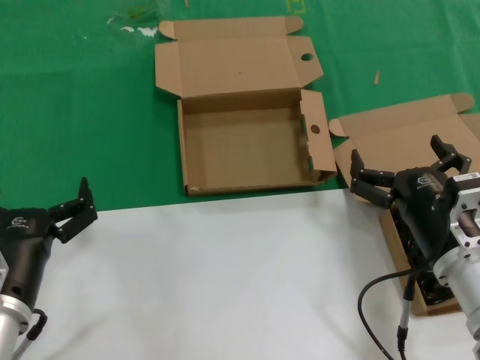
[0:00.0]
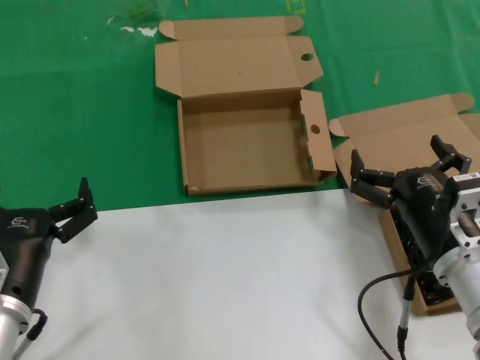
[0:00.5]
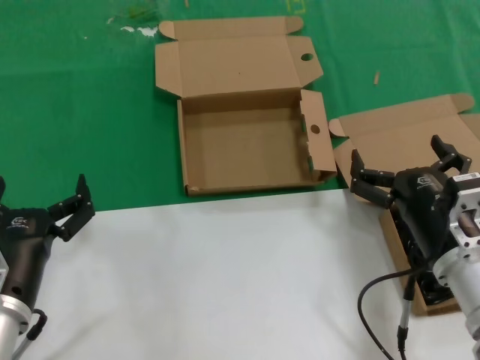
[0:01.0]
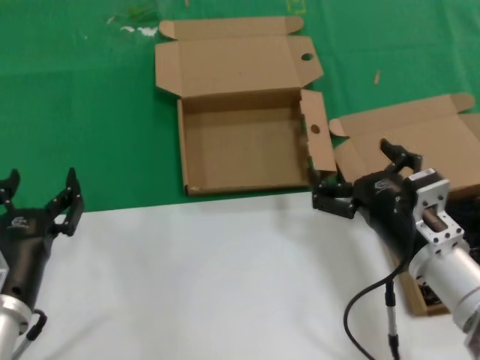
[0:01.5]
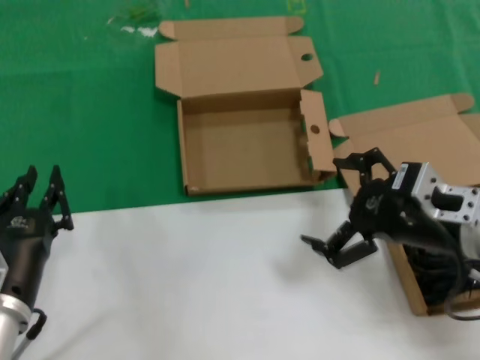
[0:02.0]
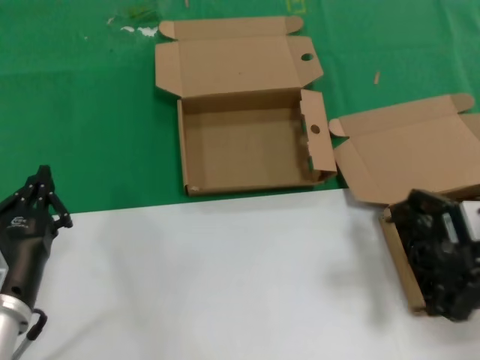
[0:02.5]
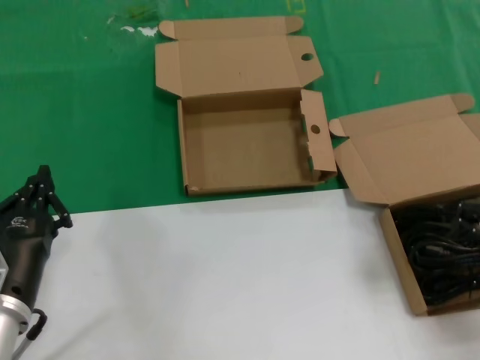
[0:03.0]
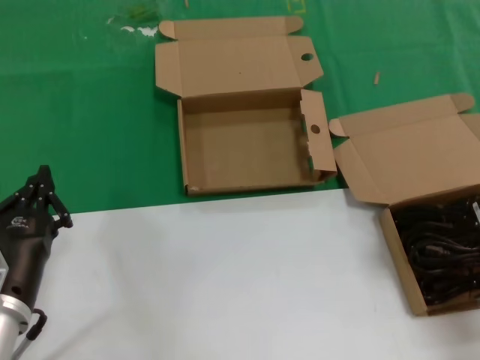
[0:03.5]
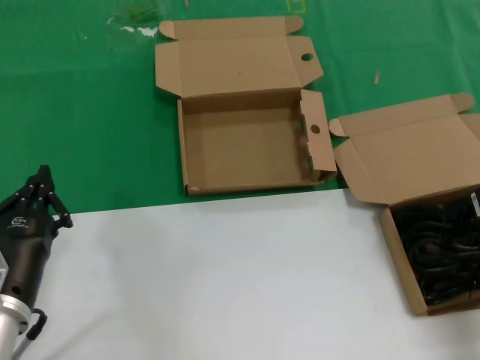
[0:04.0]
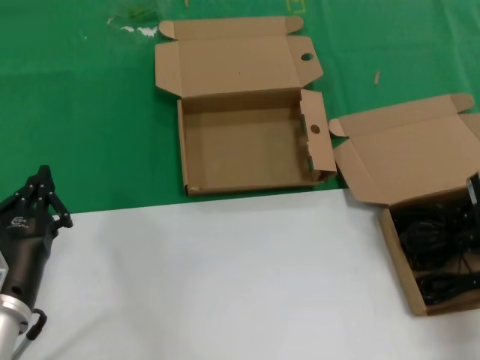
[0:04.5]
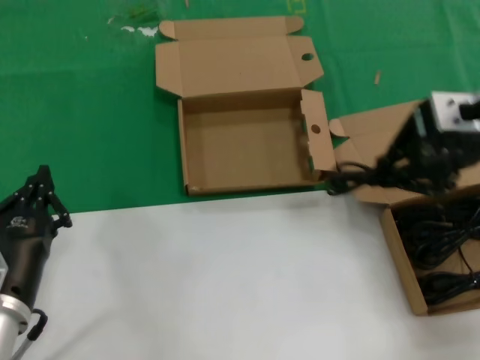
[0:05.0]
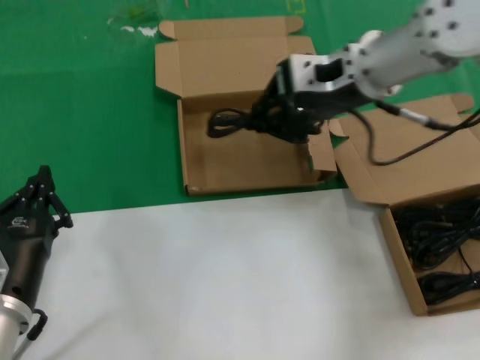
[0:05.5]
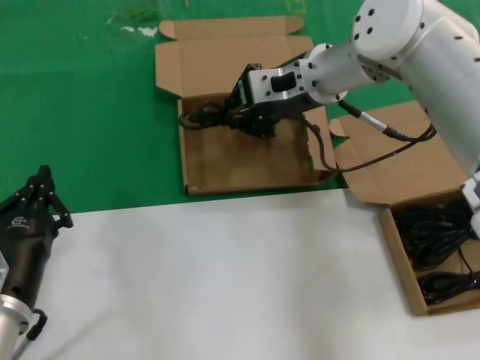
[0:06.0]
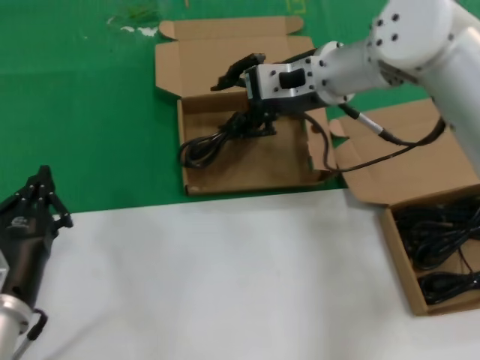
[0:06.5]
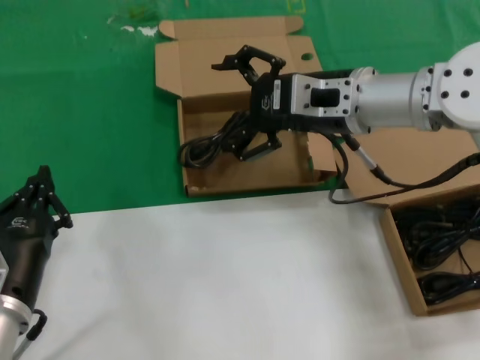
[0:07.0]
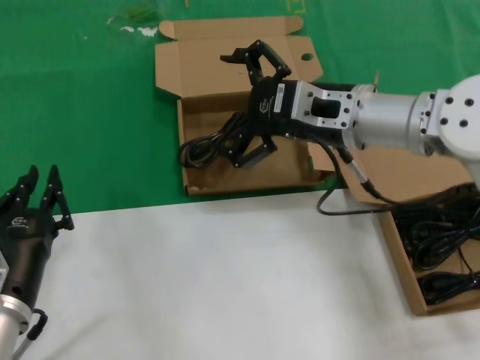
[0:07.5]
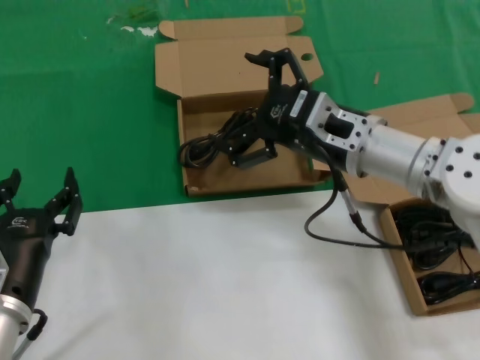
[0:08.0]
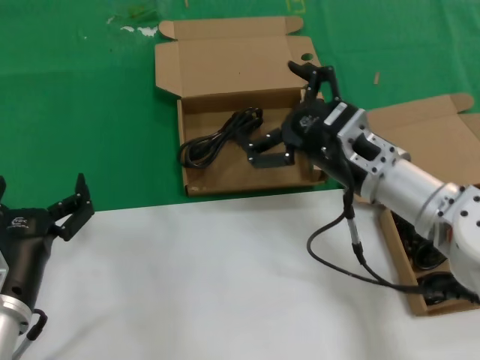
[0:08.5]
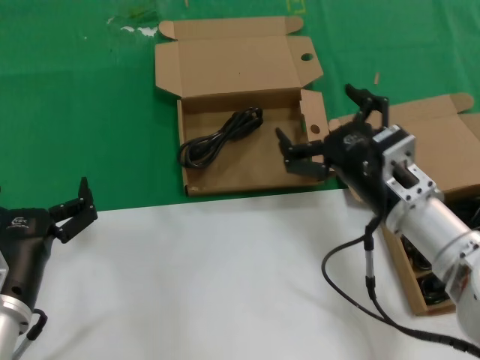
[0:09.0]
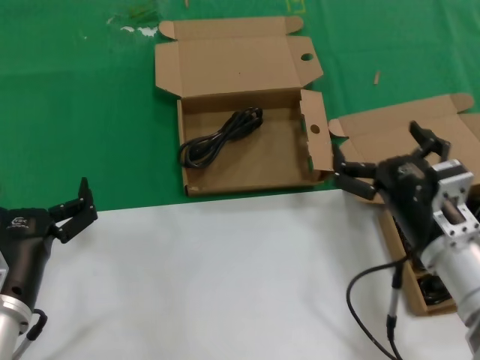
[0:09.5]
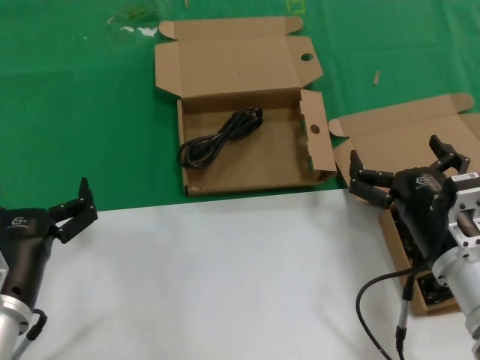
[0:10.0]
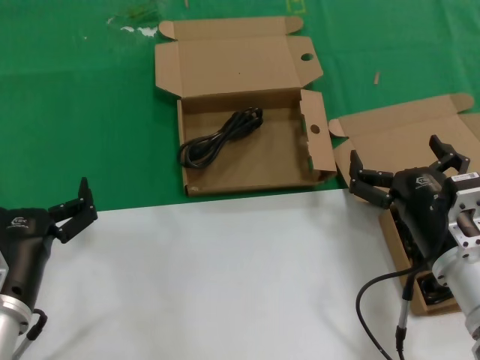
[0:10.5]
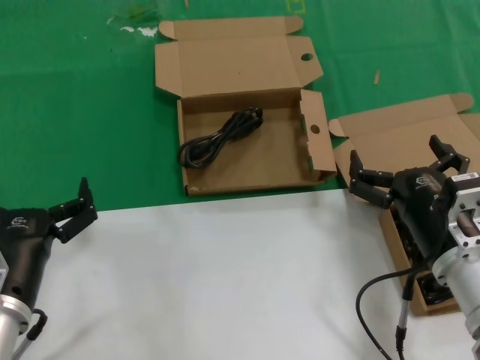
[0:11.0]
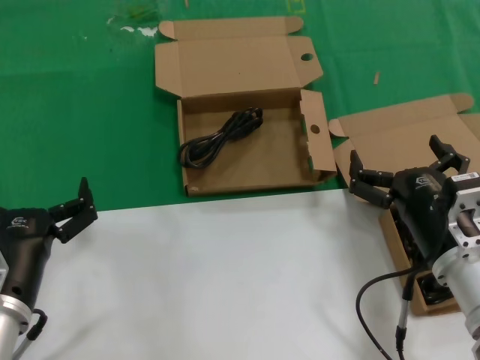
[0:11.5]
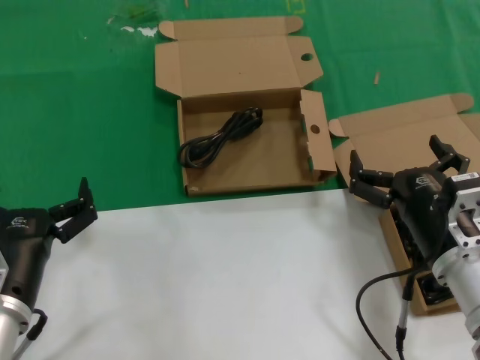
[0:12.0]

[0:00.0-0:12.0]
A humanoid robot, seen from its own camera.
Task of the whole recording: take the parts from the box containing them and put them into an empty box.
Step, 0:00.0 to 0:04.0: Grasp the data cable.
Step, 0:04.5 to 0:07.5: Place the data cable in the another box.
0:00.0 to 0:02.0: The right hand shifts some 10 cm upward.
0:02.0 to 0:04.0: The right hand moves to the right, forward and upward, approximately 15 cm.
0:04.0 to 0:06.0: The right hand travels to the left and forward by roughly 30 cm.
0:06.0 to 0:08.0: The right hand travels backward and downward by about 15 cm.
0:08.0 to 0:10.0: The right hand travels backward, downward and to the right by some 20 cm.
0:10.0 to 0:12.0: The two hands keep their place.

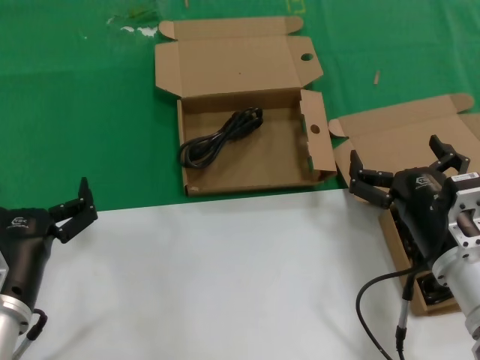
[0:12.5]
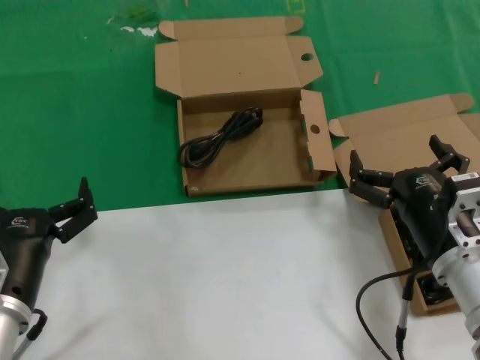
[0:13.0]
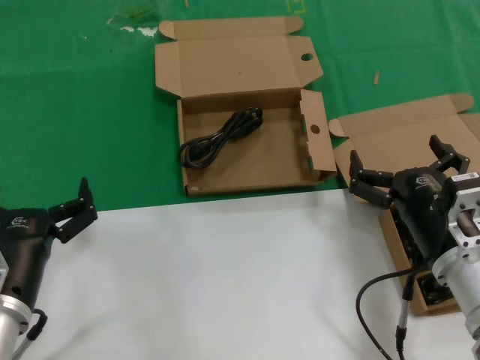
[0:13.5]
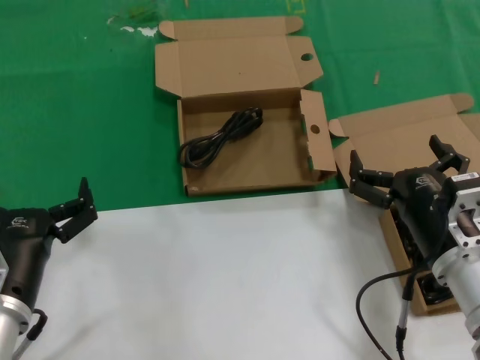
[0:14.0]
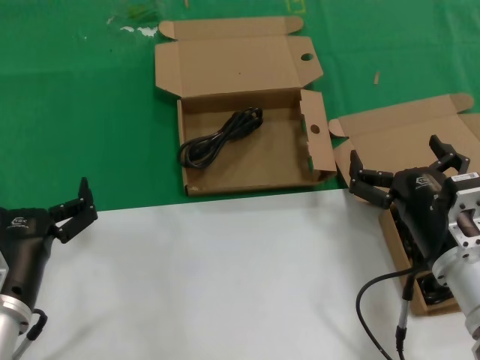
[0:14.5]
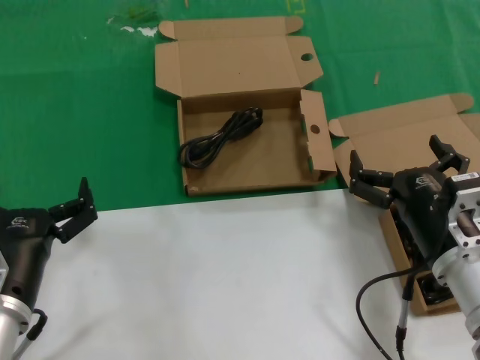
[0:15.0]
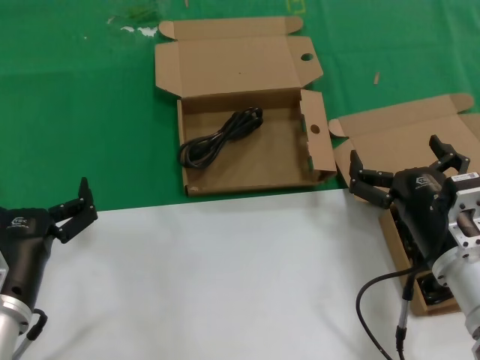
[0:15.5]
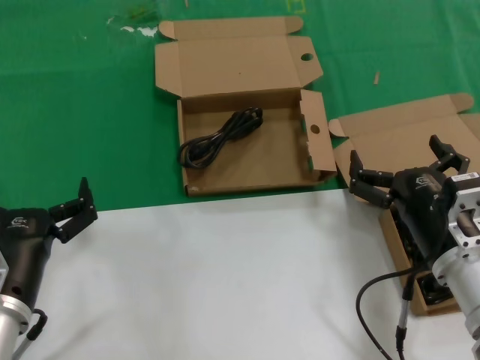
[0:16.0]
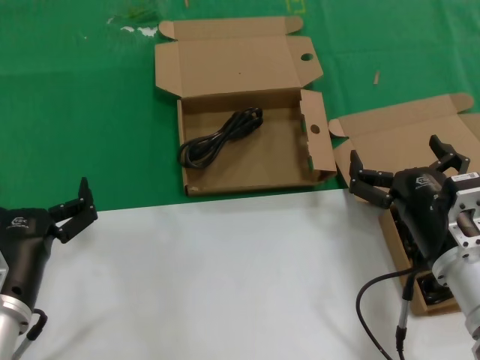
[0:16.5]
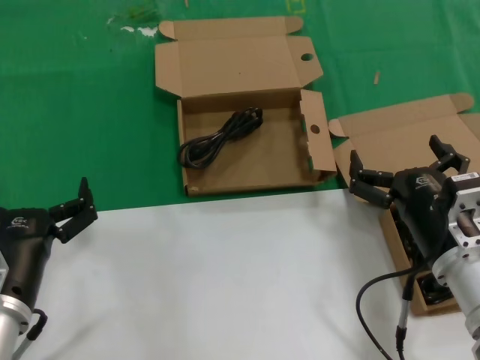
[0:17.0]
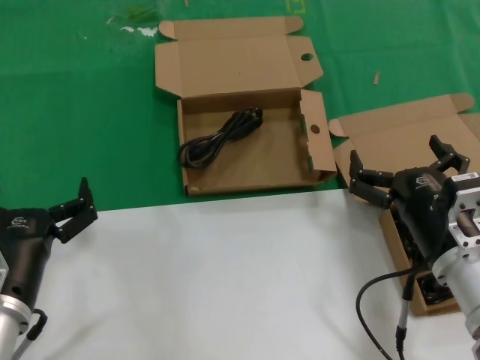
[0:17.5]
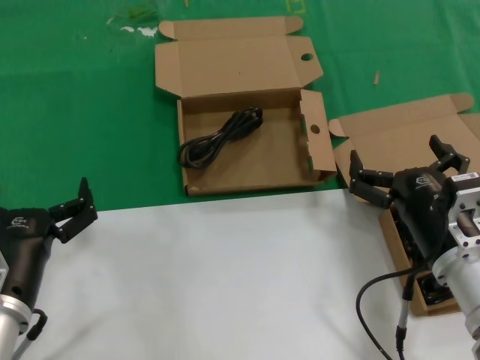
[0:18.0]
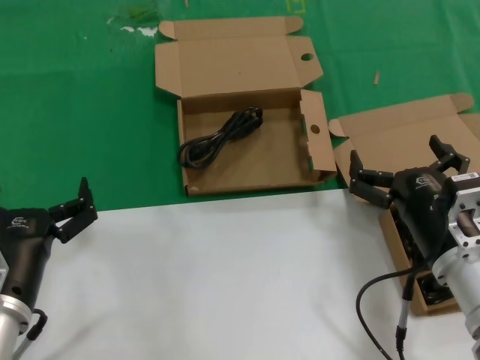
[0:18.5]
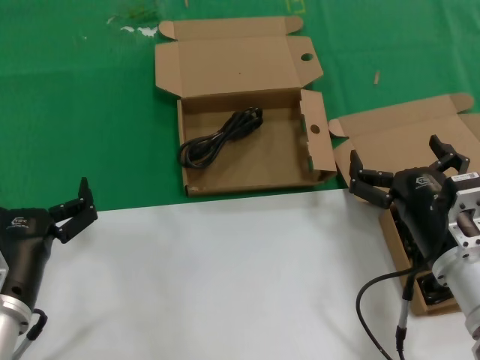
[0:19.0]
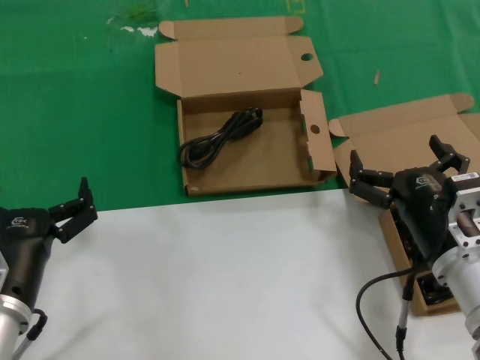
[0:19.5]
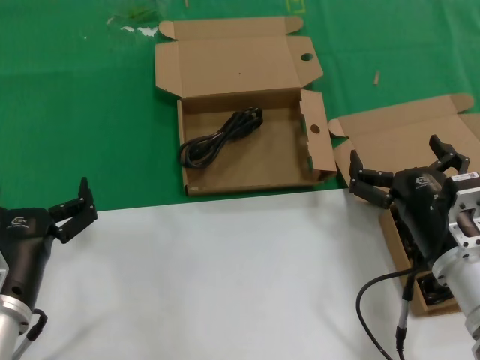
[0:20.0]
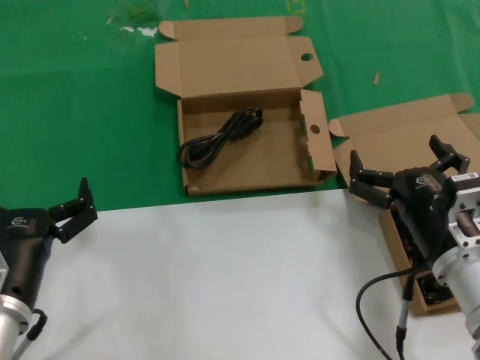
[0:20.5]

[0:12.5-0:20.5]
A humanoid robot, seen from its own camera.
Task of the whole recording: take the parts from the box containing them and put them into an empty box.
0:12.5 to 0:20.5: Neither hand changes place.

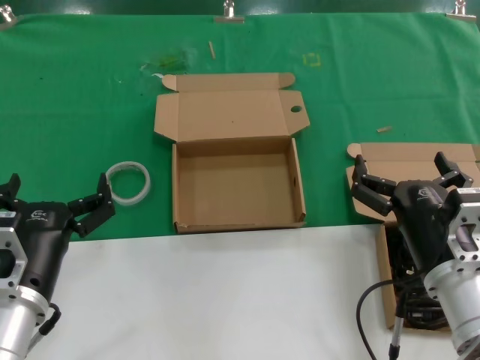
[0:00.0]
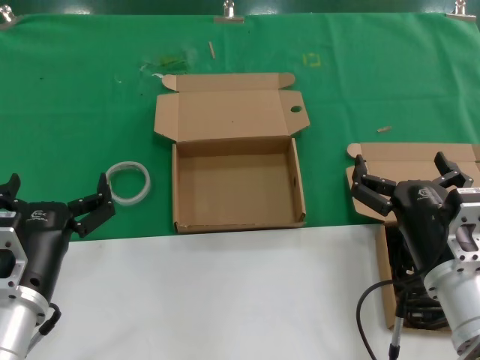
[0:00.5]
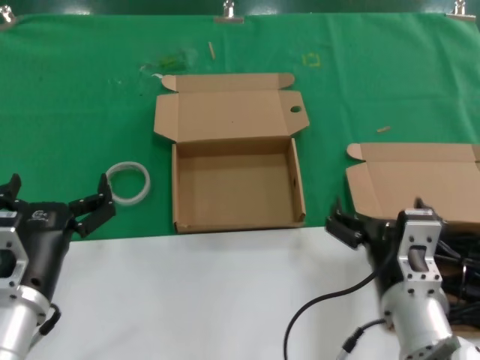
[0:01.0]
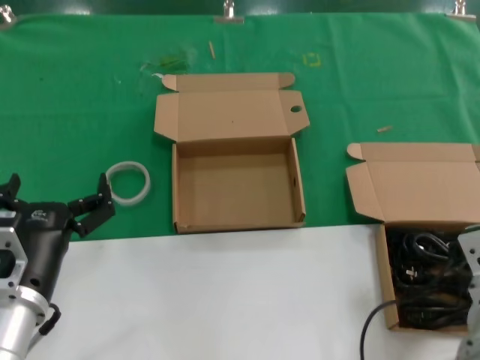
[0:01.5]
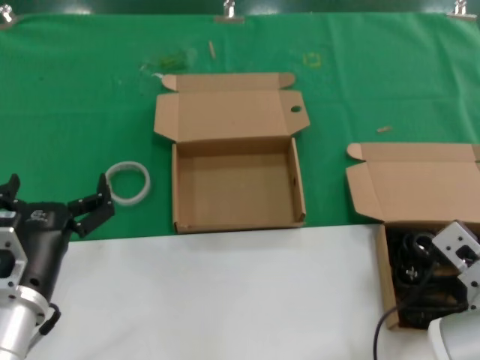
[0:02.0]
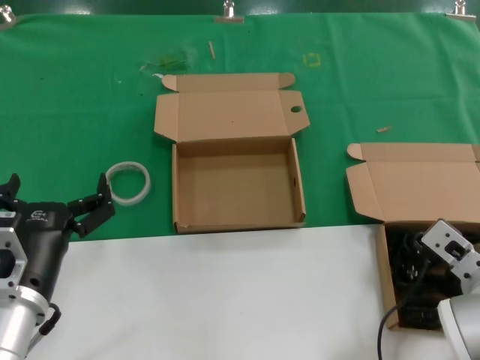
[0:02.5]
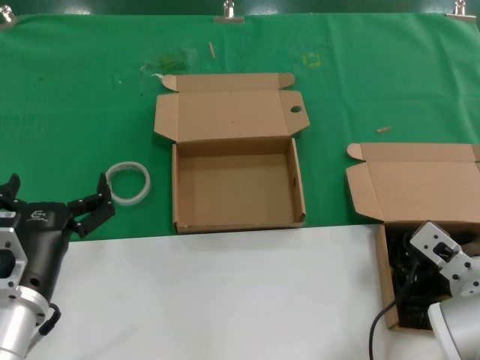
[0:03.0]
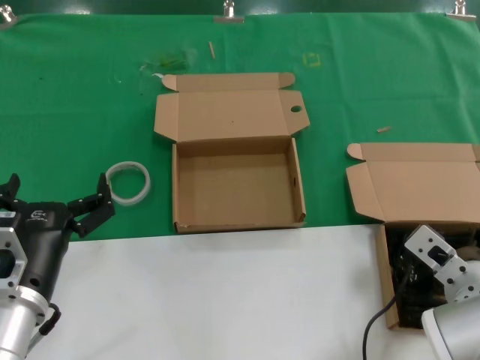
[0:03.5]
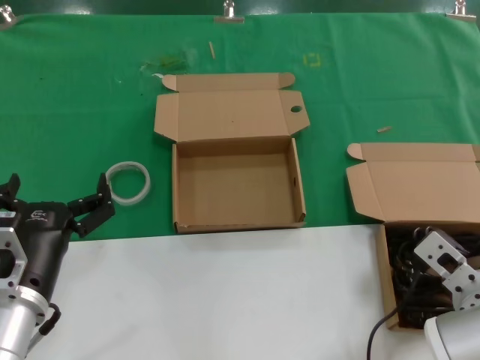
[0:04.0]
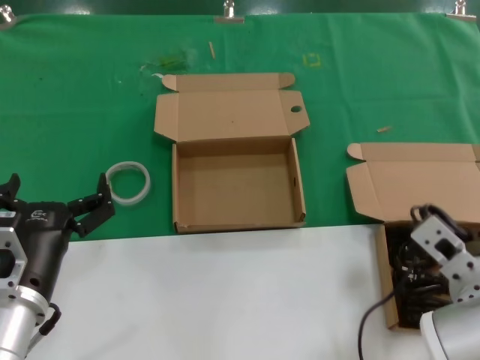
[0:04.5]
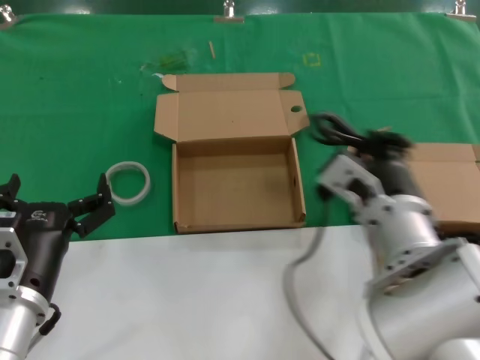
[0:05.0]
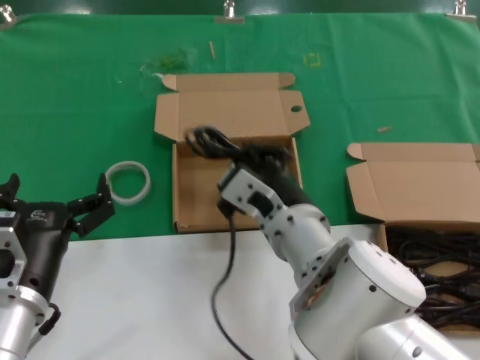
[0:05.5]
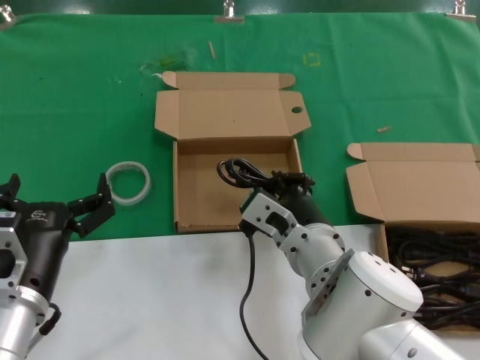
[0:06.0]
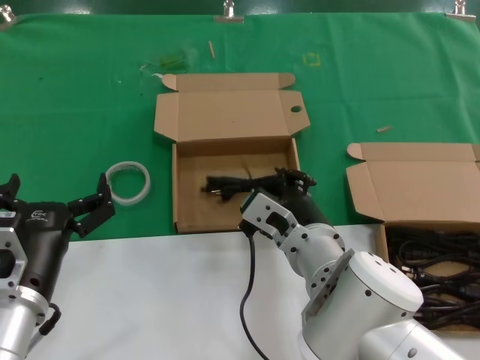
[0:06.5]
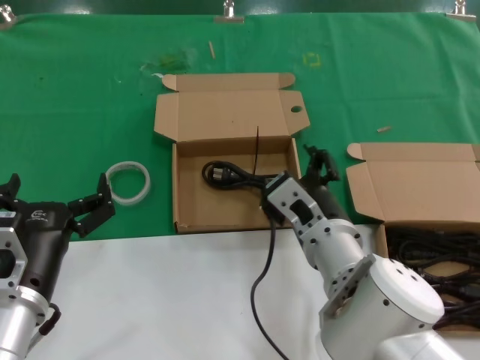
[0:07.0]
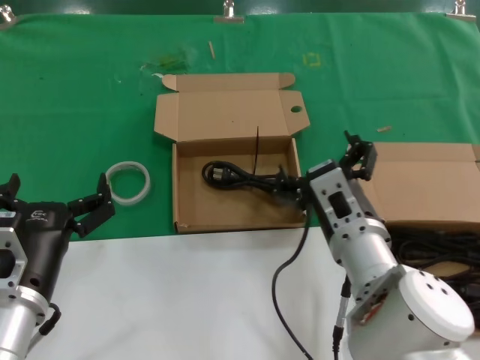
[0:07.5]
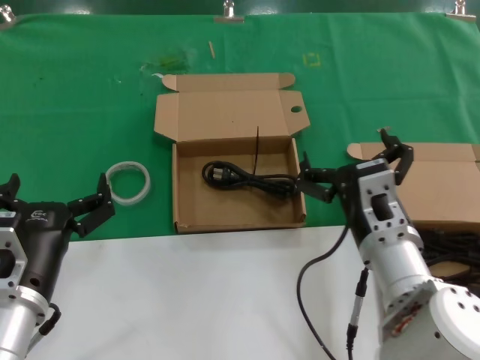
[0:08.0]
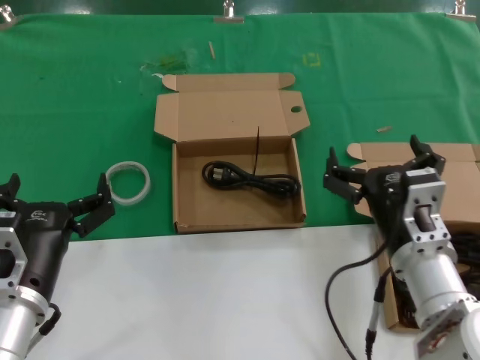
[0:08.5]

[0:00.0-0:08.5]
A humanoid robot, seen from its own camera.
Task of the whole recording: take the parts from the box containing them and put them into an empty box.
Step, 0:00.0 to 0:03.0: Grasp the data cable.
Step, 0:03.5 to 0:06.5: Place the data cable in the another box.
0:02.0 to 0:04.0: The hands move only a little.
0:04.0 to 0:06.5: The right hand moves to the left, approximately 15 cm.
0:06.5 to 0:08.5: The right hand is displaced to the right by roughly 10 cm.
